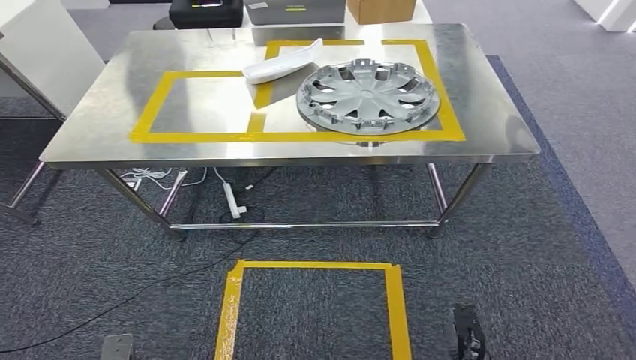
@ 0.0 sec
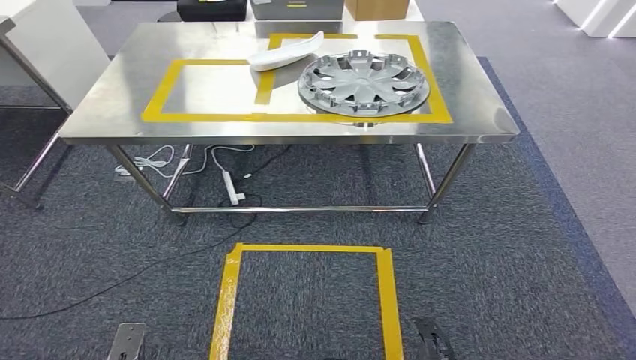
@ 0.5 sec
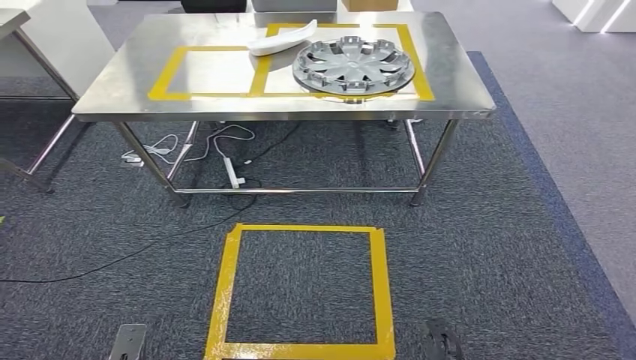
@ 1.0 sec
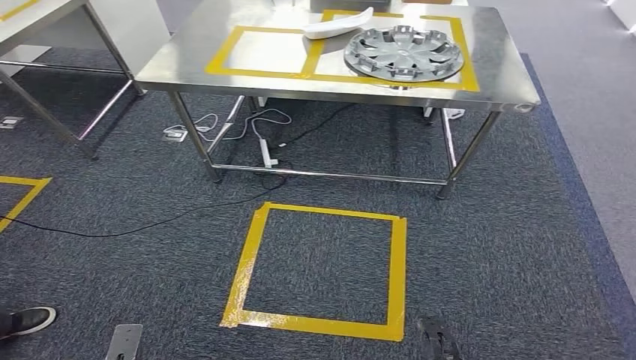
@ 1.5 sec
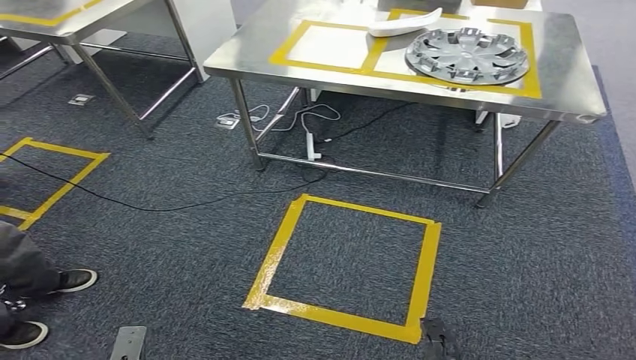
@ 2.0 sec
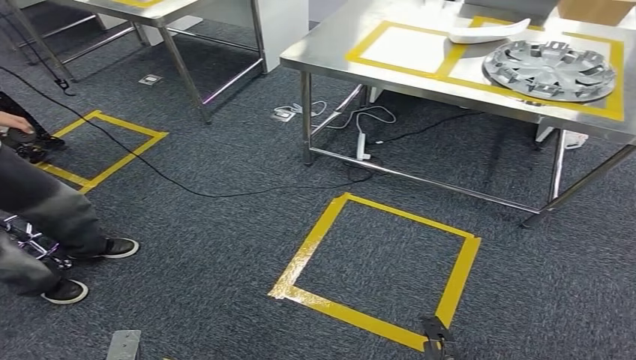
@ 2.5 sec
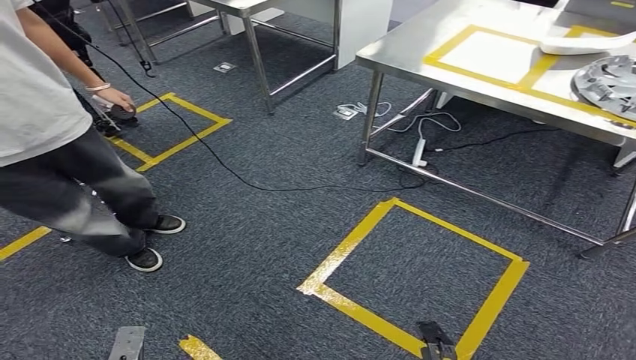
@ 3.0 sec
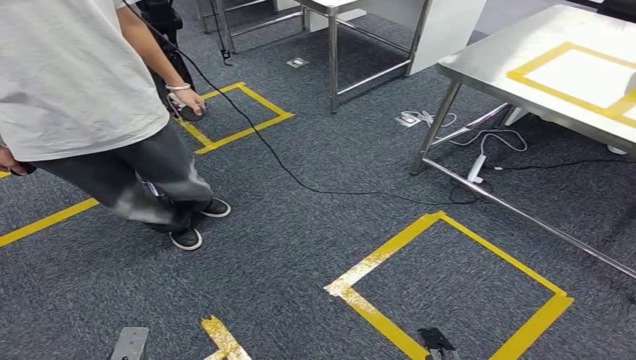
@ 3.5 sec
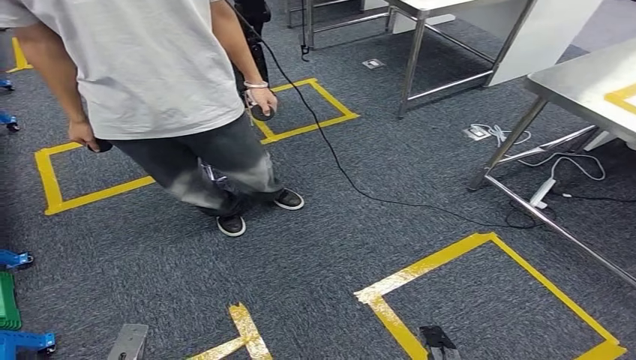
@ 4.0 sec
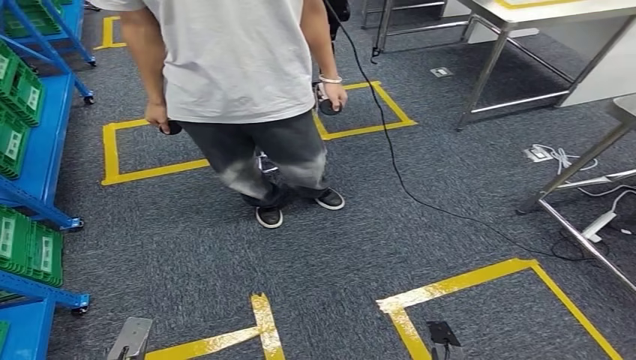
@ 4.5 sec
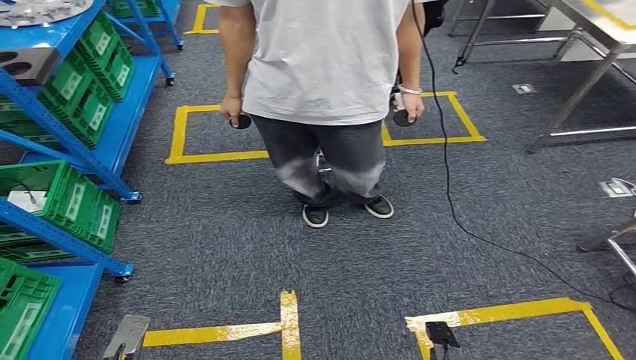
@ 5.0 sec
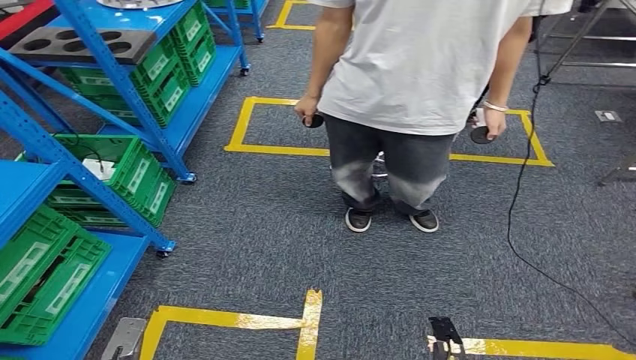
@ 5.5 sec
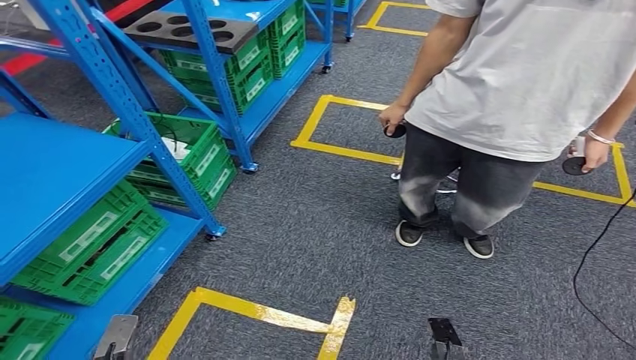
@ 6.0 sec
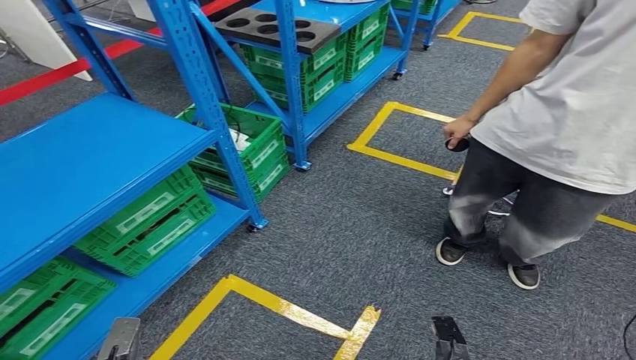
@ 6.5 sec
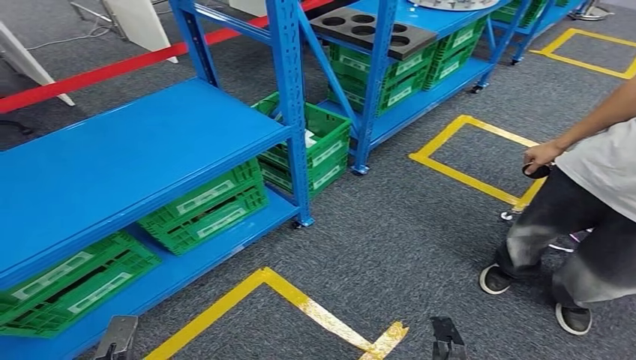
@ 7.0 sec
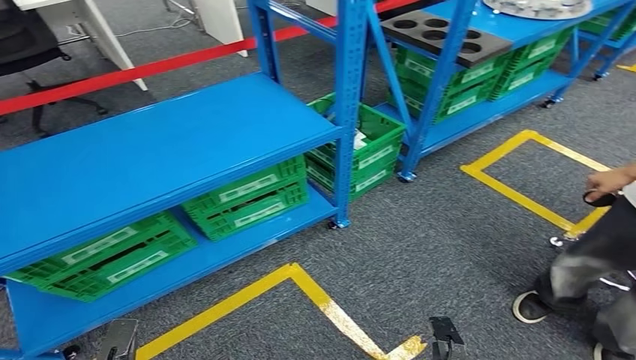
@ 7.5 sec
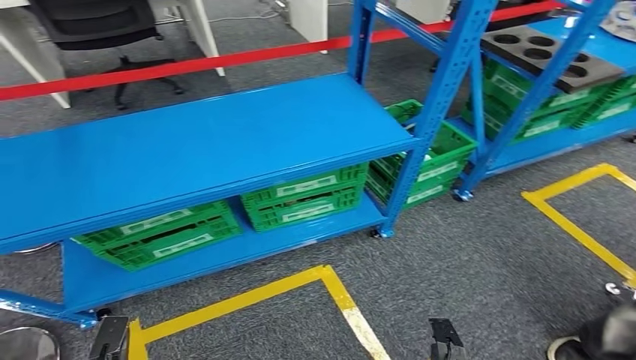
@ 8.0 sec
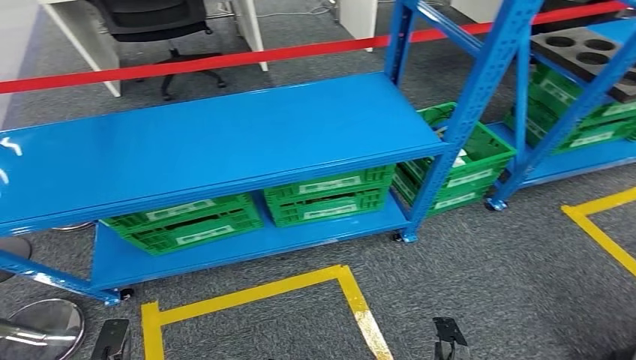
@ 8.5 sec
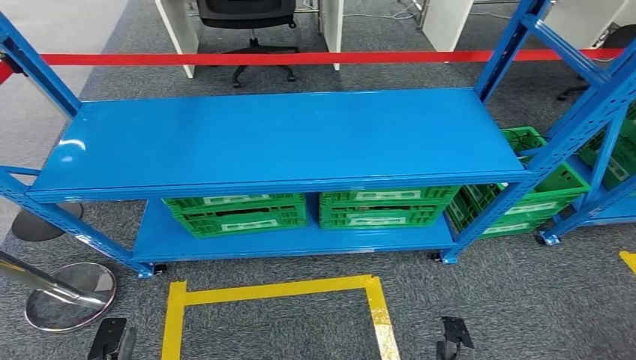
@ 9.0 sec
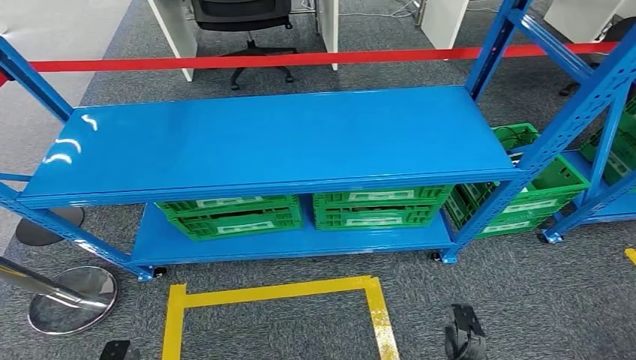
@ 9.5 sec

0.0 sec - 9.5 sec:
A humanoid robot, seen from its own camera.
Step, 0.5 sec - 9.5 sec: Move to the initial position at the workbench.
